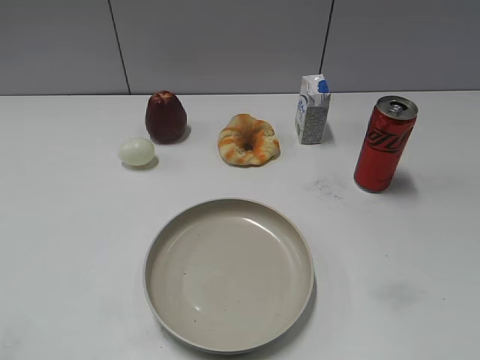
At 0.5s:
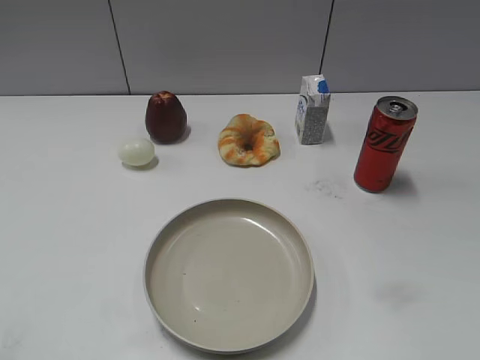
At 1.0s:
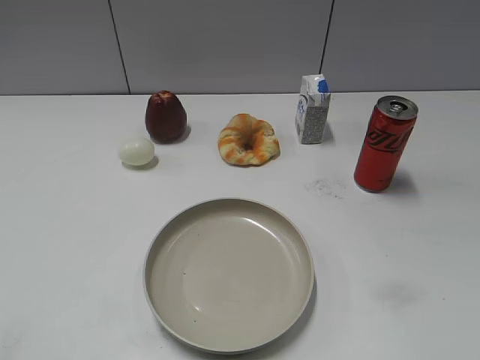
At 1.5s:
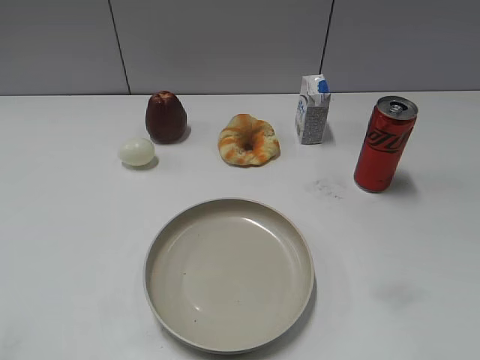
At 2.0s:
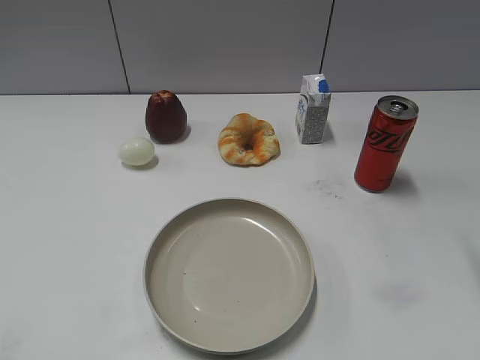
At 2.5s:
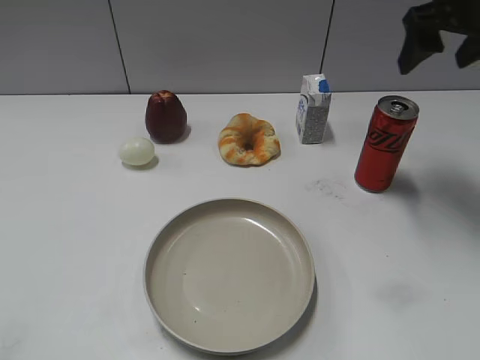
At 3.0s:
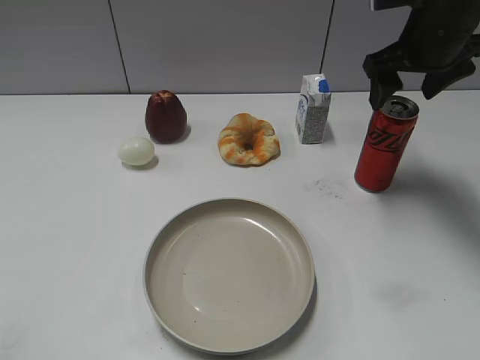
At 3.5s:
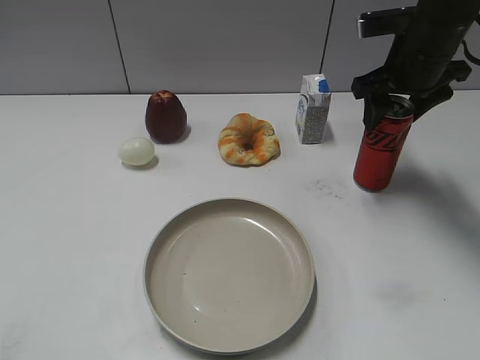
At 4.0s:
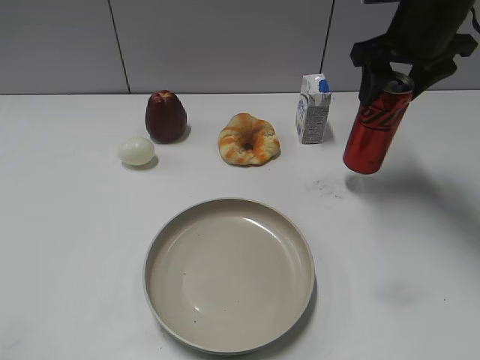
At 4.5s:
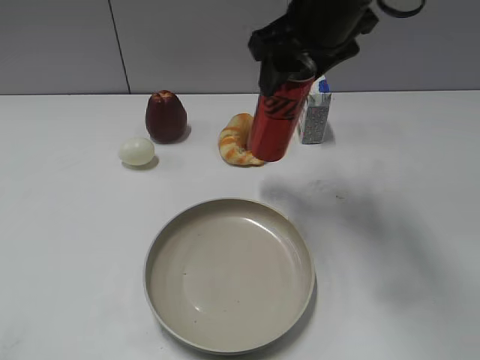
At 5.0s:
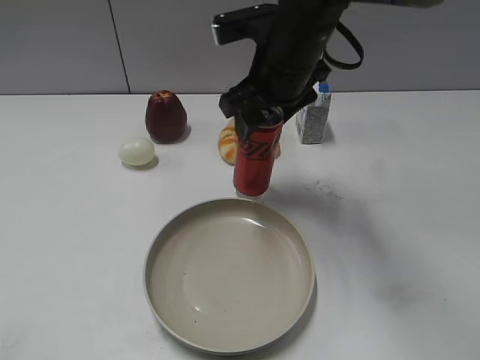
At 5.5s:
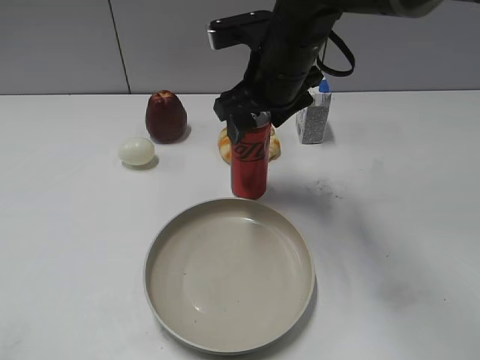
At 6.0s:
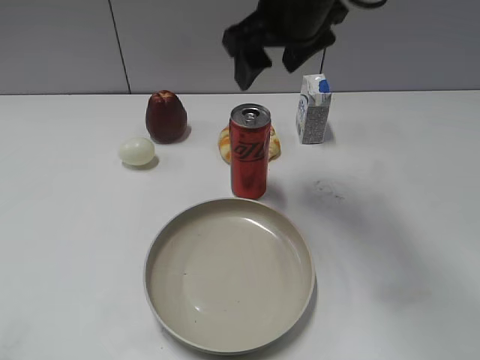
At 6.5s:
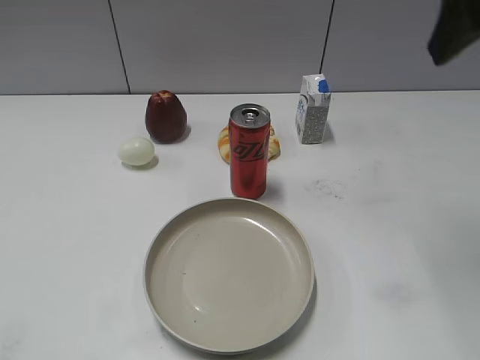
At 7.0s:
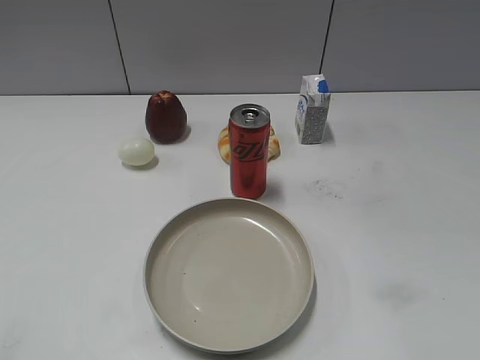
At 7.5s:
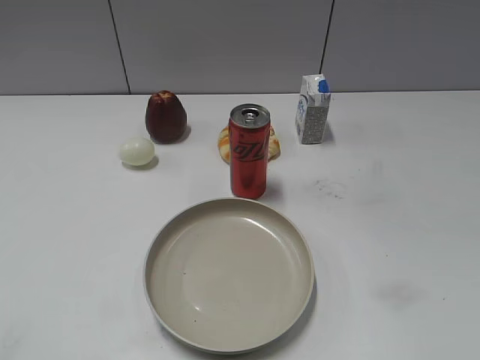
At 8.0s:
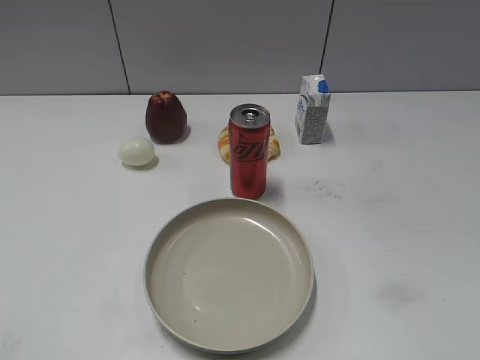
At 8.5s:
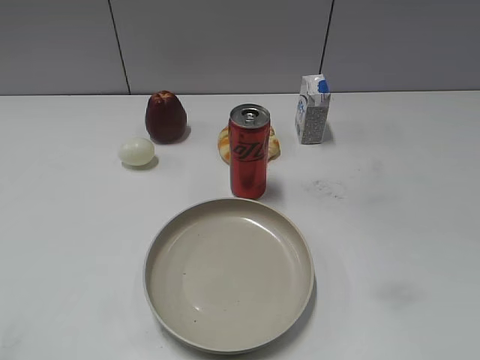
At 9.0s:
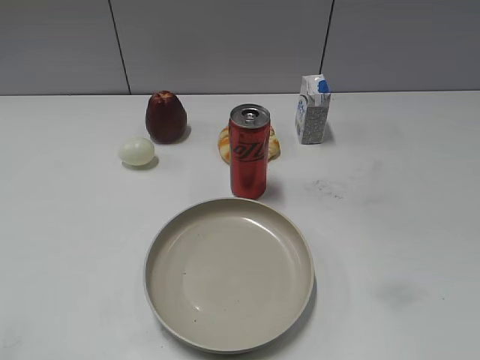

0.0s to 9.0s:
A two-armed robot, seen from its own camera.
Step, 1.5s to 3.5s: Grasp the cola with right gripper.
Step, 4.0s to 5.5s: Place the cola on the table with right gripper.
2.0s to 4.5s: The right gripper shifts approximately 25 cm to the left and forward, and closes.
4.5s to 7.0s: The right gripper goes about 35 cm backward and to the right, and opens up.
